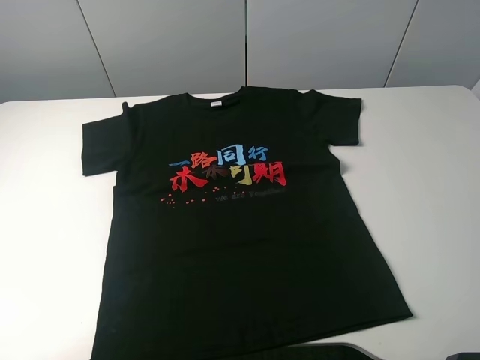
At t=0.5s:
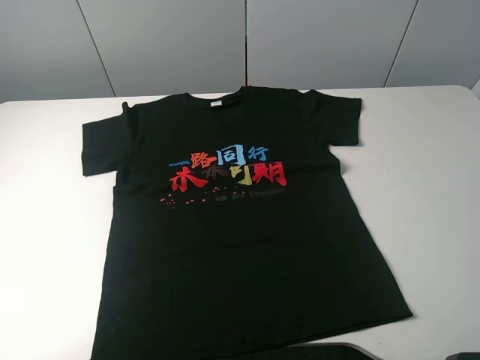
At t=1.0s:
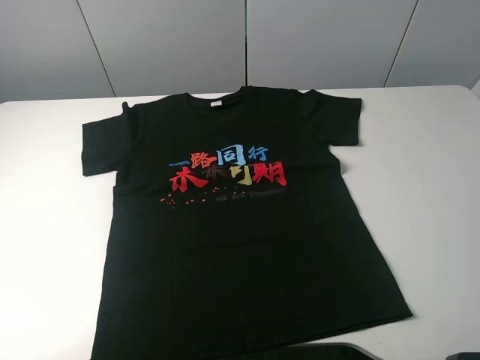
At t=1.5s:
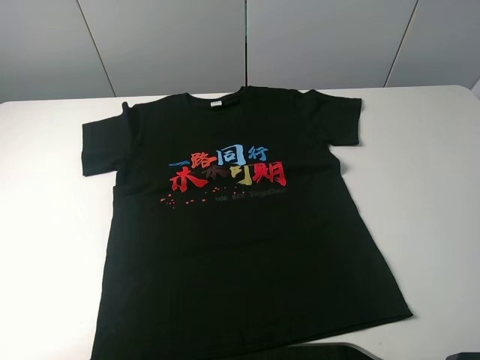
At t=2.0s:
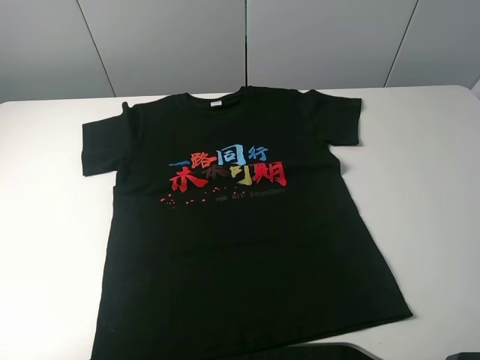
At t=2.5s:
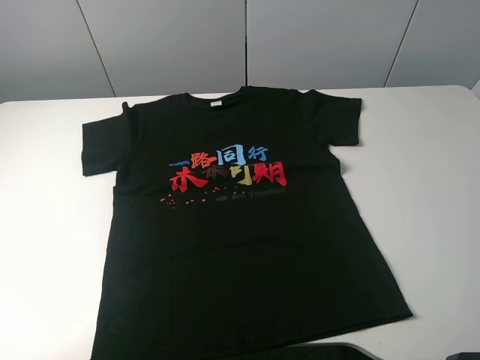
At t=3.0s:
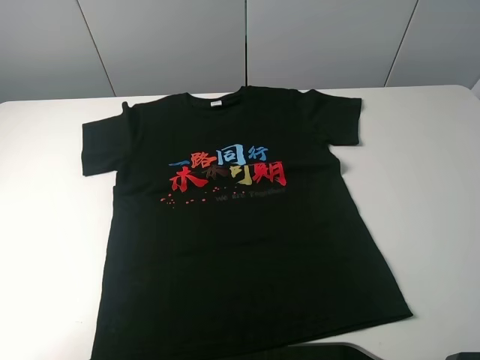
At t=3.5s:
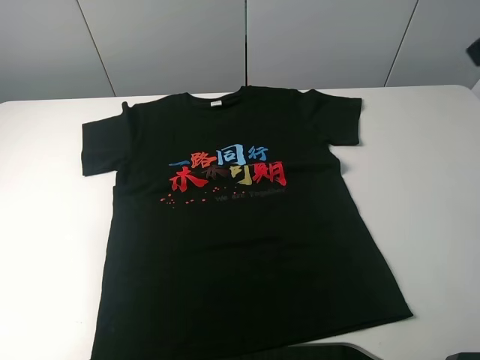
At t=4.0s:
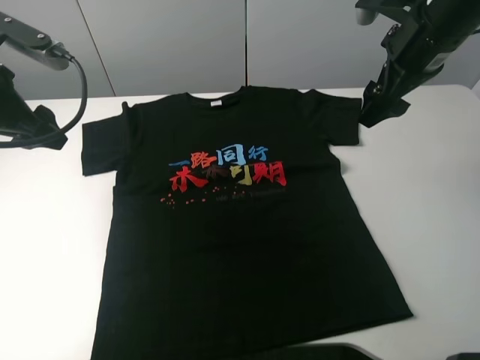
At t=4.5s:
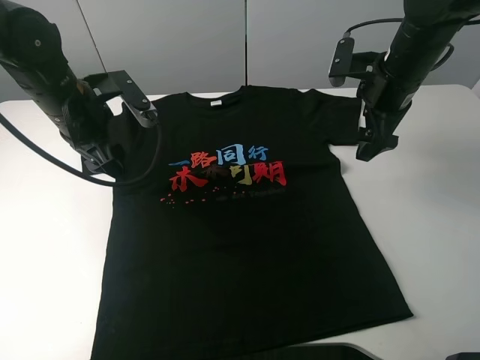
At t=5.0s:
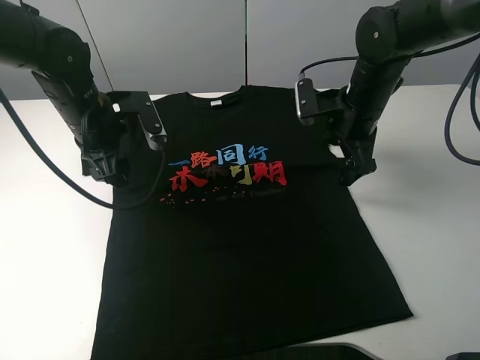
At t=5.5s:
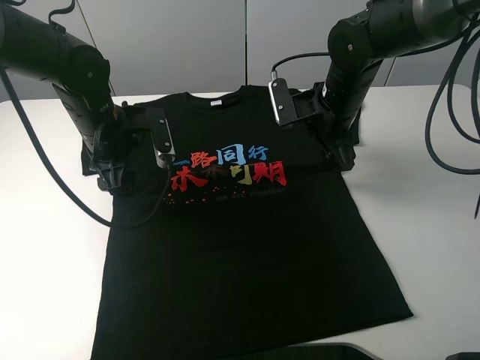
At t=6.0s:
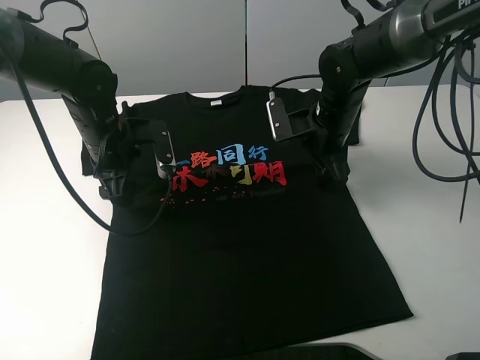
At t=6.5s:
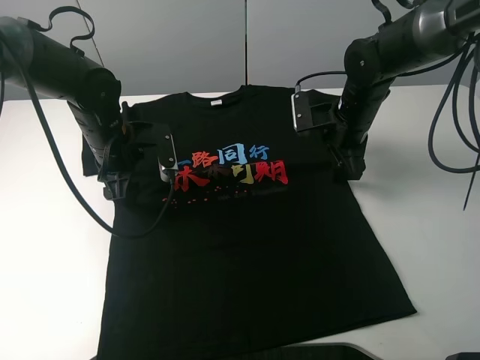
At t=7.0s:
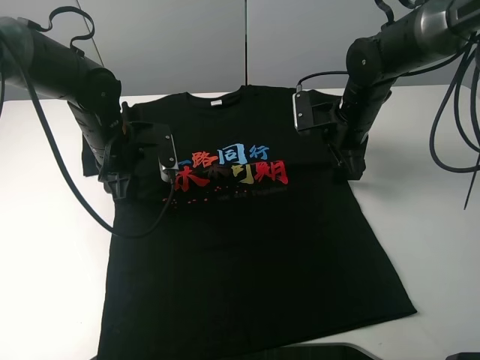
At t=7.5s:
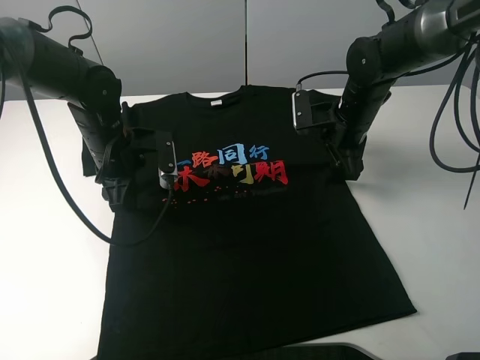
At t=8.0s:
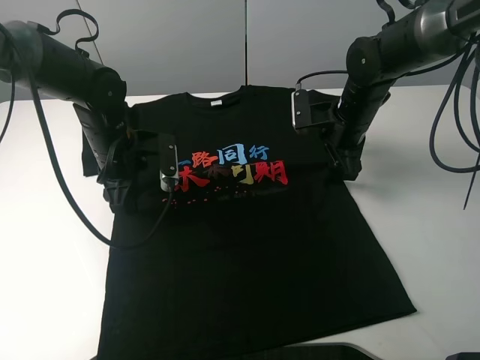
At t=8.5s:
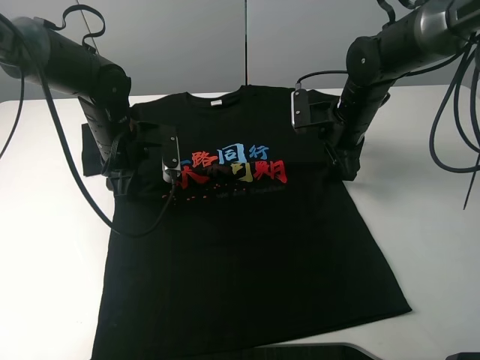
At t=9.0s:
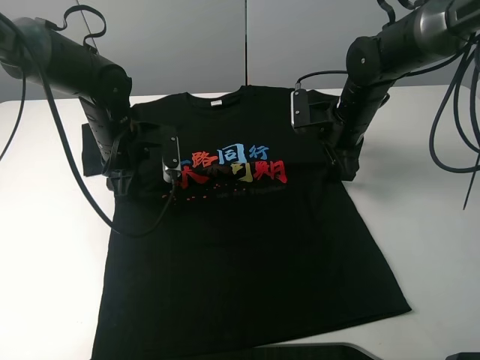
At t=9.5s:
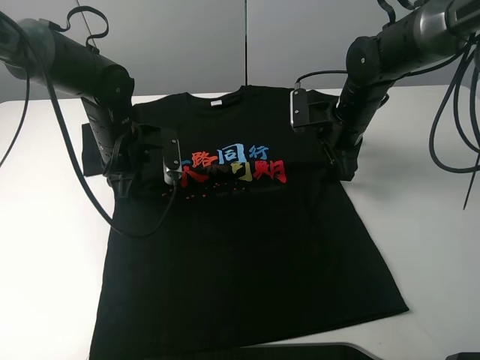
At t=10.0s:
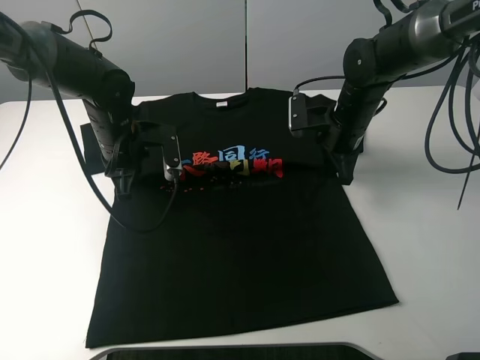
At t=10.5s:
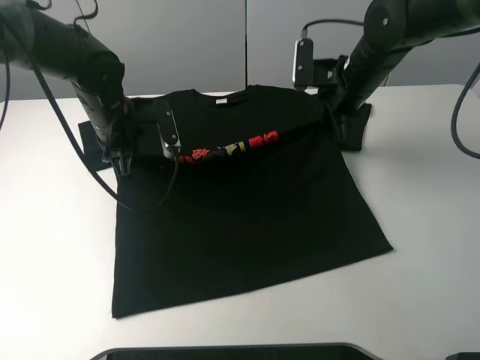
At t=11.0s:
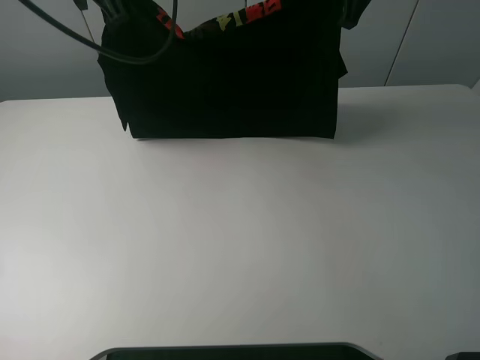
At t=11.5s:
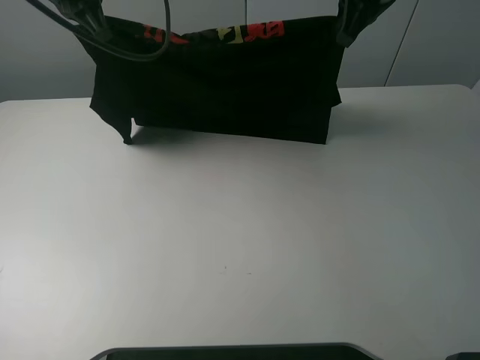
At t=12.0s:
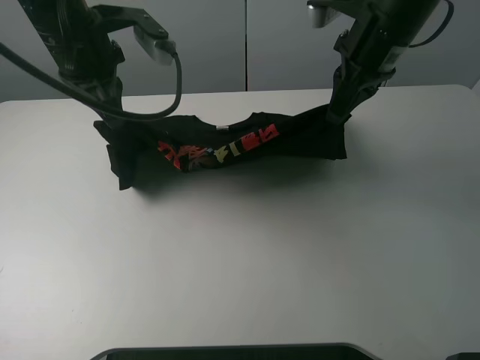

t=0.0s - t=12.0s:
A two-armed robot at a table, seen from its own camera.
Task of the whole recording: fold the clothes on the table.
Step, t=0.0s - t=10.0s: Lift the black T-shirt with the left gripper.
t=2.0s - t=4.0s: The grippers both shift forward by roughly 30 cm.
t=4.0s - t=6.0s: The right gripper heads downward and to the left, covering some 15 cm. The left gripper heads downward, to the right and forward, covering approximately 15 cm.
t=6.0s - t=8.0s: There are only small adjustments of the grippers.
t=8.0s - t=10.0s: The left gripper closes its fingers, while the right gripper closes.
t=10.0s - t=12.0s: Both grippers move upward, some 15 cm.

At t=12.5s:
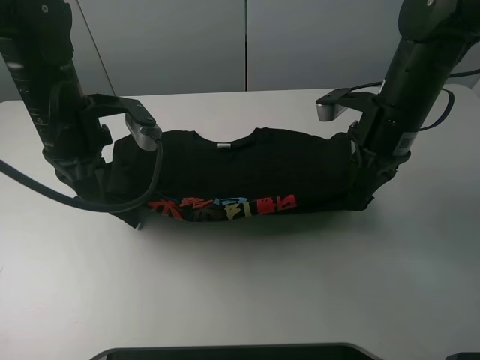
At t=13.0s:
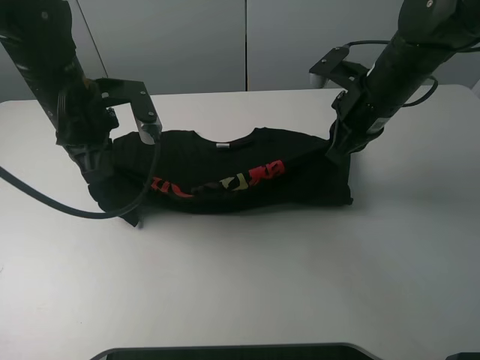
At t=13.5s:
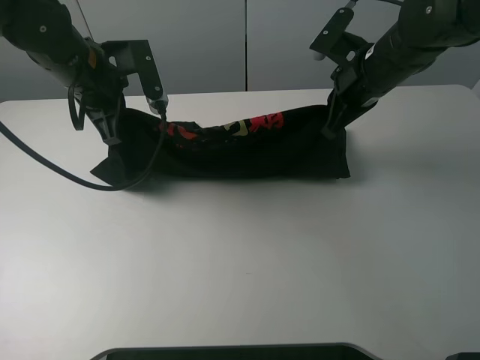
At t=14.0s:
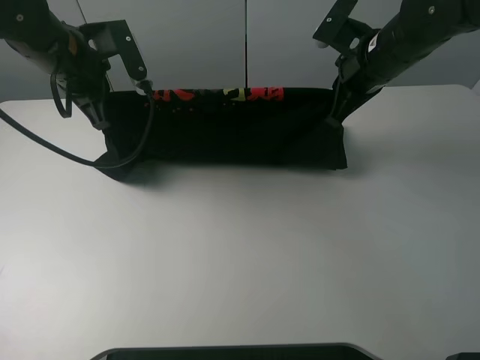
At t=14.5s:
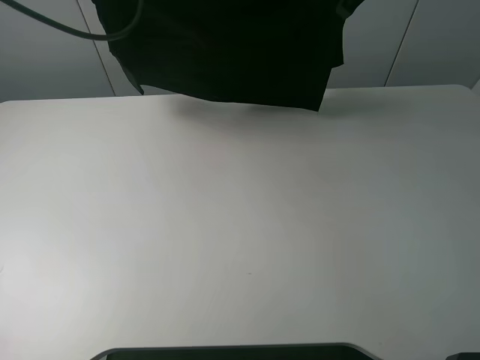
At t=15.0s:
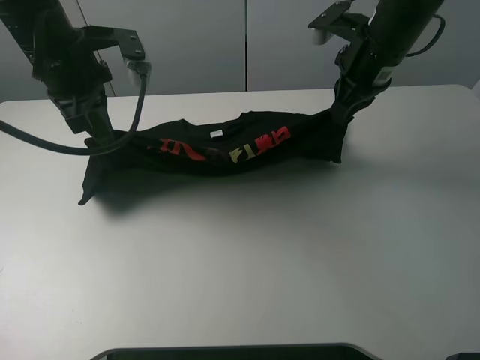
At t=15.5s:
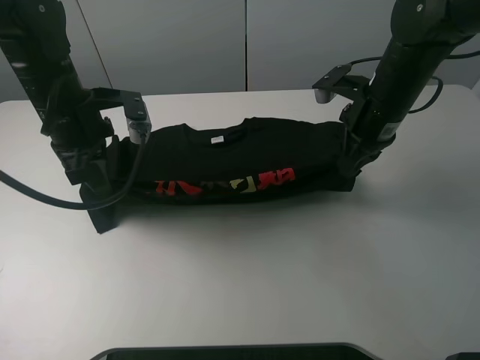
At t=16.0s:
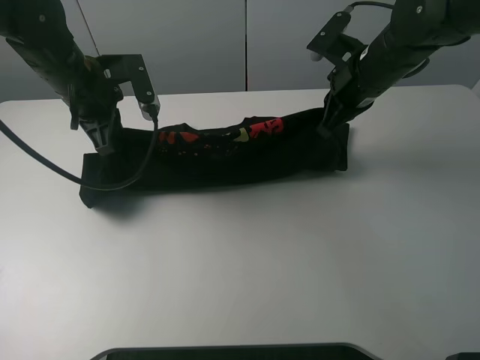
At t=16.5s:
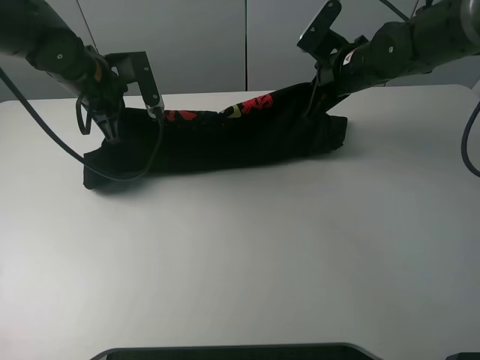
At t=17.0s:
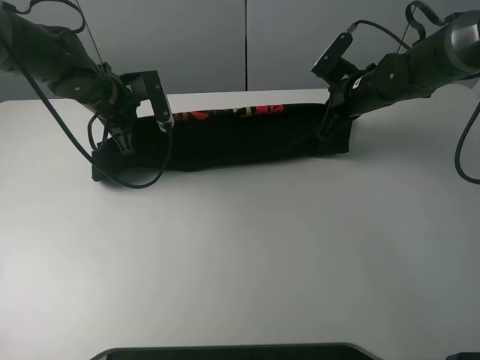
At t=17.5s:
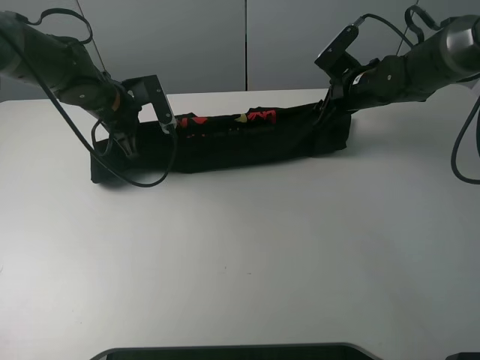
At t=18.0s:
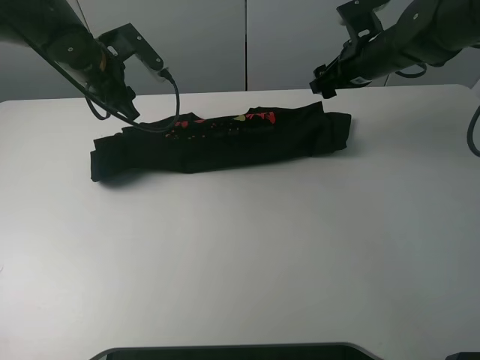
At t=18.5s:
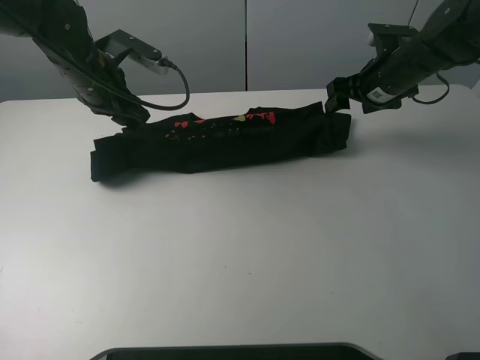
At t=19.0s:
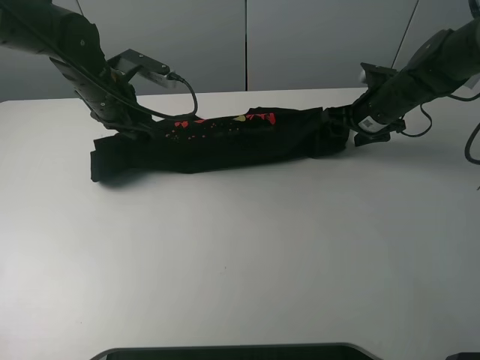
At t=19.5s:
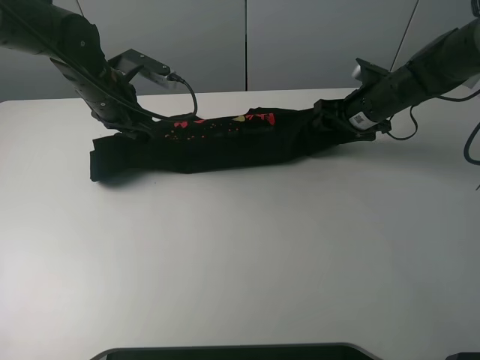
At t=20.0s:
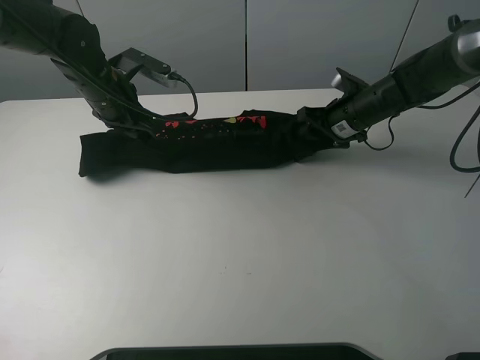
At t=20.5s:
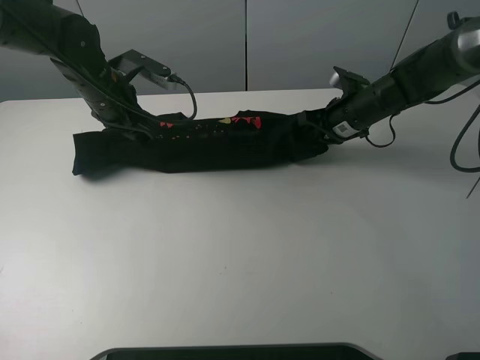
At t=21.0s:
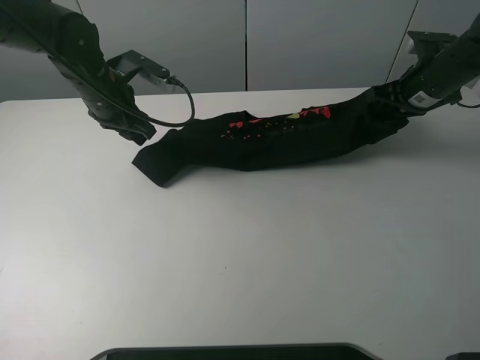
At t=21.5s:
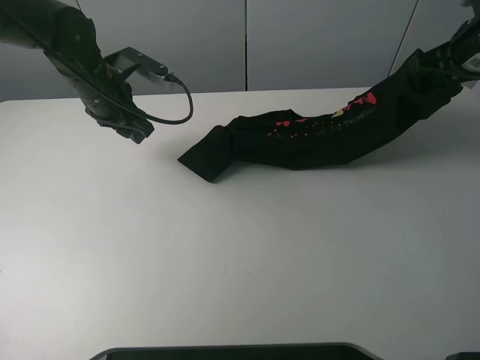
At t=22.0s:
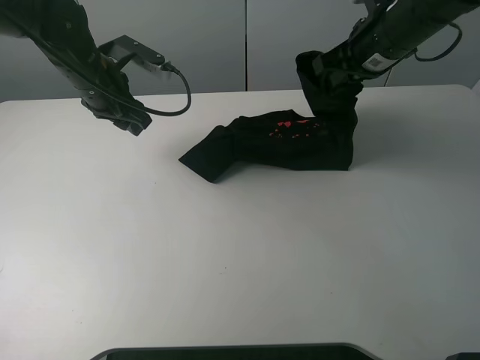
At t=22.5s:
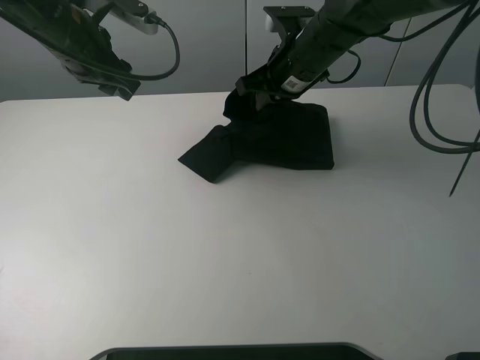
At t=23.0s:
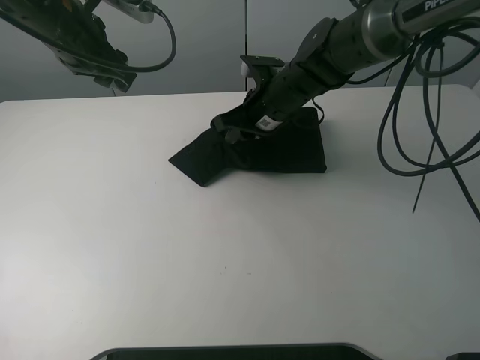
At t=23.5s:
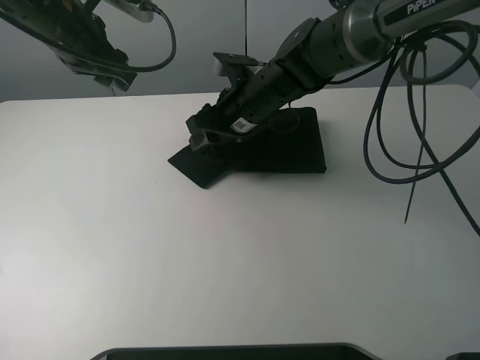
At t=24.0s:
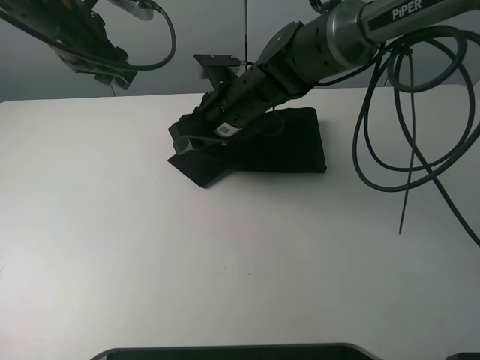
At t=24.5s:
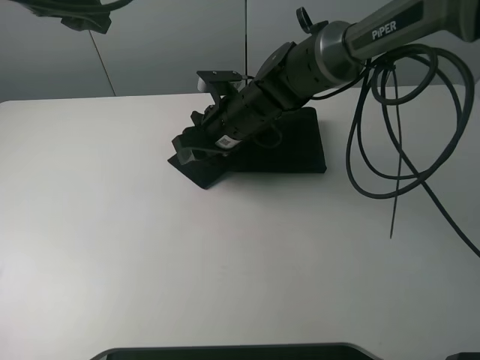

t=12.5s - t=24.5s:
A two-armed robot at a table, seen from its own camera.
Task of the whole recording: fold the clothes on the table.
Step, t=12.5s - t=17.5s: Fold the black T-shirt downward with the left gripper.
Step, t=18.0s - t=19.5s: Grasp the black T-shirt with the right gripper.
t=12.5s - t=14.5s: Both grippers move upward and forward, some 20 cm.
t=14.5s - t=16.5s: The grippers both shift downward by some 20 cm.
t=16.5s - t=18.5s: The right gripper shifts roughly 5 cm to the right, and opens; the left gripper opens its fingers.
t=18.5s - t=20.5s: The right gripper heads downward, covering some 5 cm, and closes its fingers.
t=20.5s - t=22.5s: The left gripper shifts approximately 10 cm upward; the right gripper heads to the left and upward, covering some 15 cm.
t=22.5s - t=24.5s: The right gripper is displaced to the left and downward by roughly 10 cm, and opens up, while the left gripper travels upward by approximately 10 cm.

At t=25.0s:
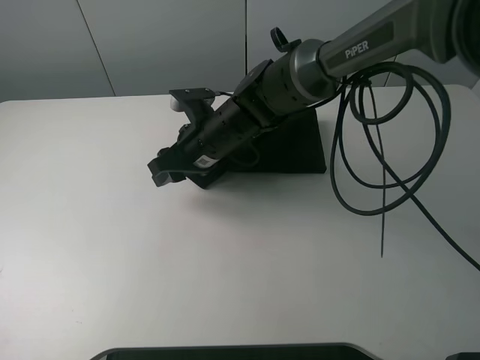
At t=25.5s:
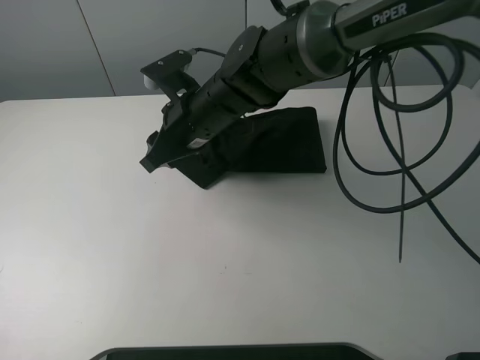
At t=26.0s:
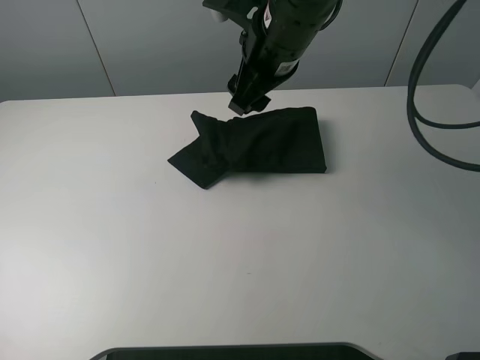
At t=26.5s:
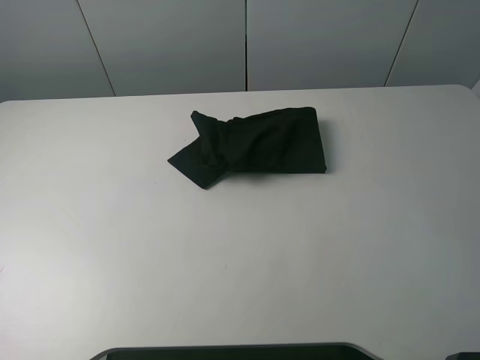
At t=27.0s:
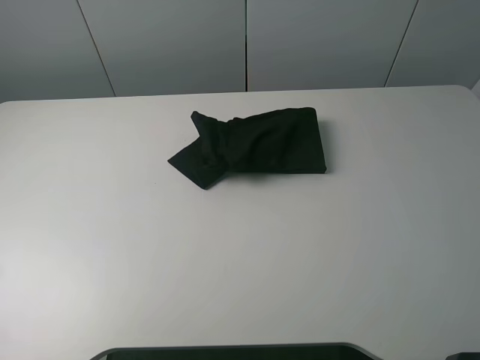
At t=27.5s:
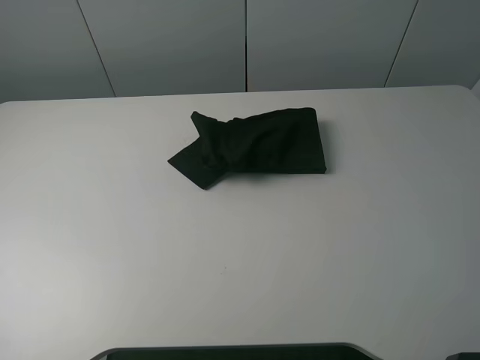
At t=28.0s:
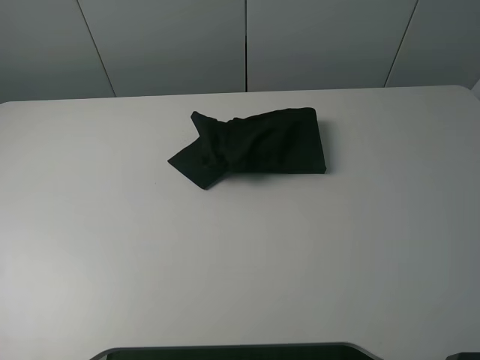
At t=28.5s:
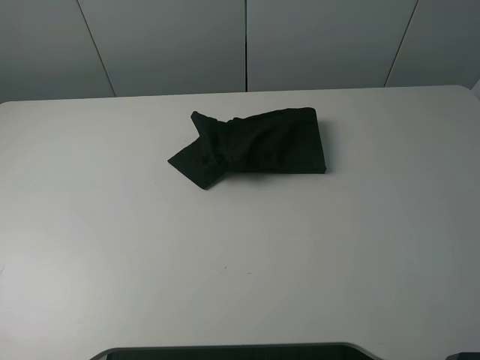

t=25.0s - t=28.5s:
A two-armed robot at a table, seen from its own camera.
Task of the whole recording: fold the clothes on the table.
t=25.0s - t=27.0s: The left gripper is displaced backward and to the left by approximately 35 cm. Meanwhile the right gripper moves upward, to the right and backward, roughly 50 cm, and opens up.
t=27.0s - t=28.5s: The left gripper goes approximately 15 cm downward and backward.
